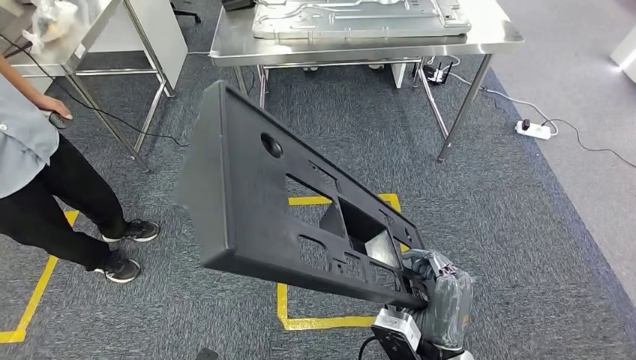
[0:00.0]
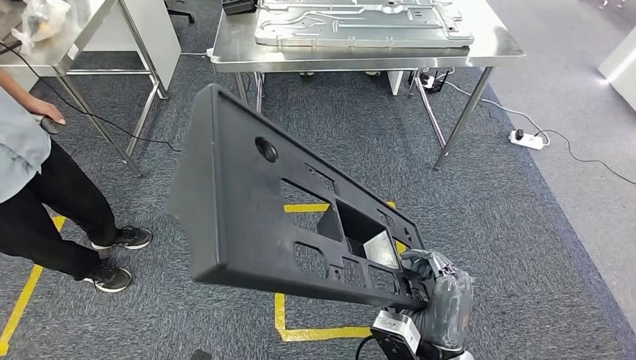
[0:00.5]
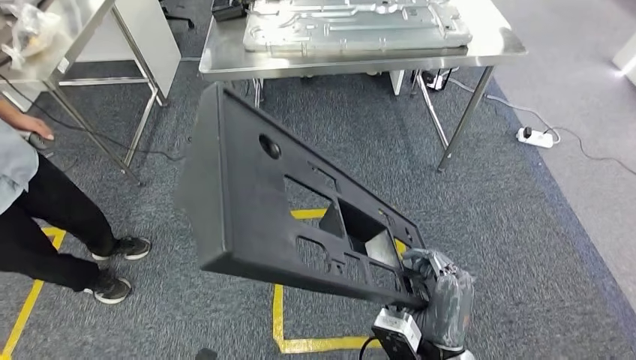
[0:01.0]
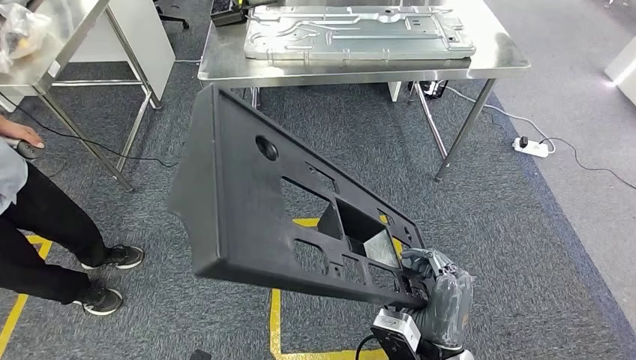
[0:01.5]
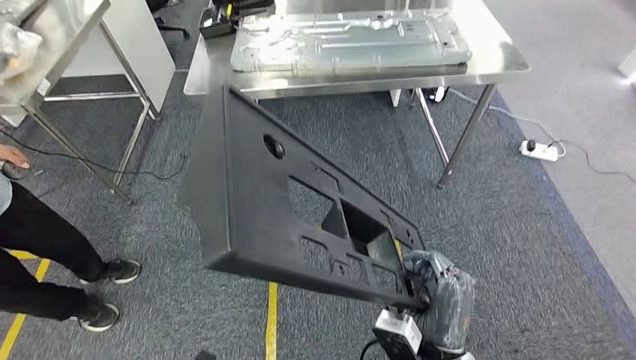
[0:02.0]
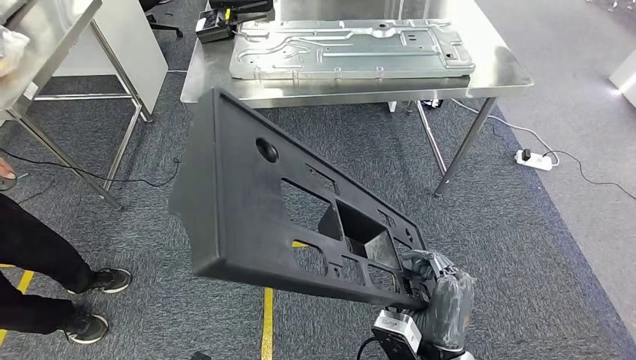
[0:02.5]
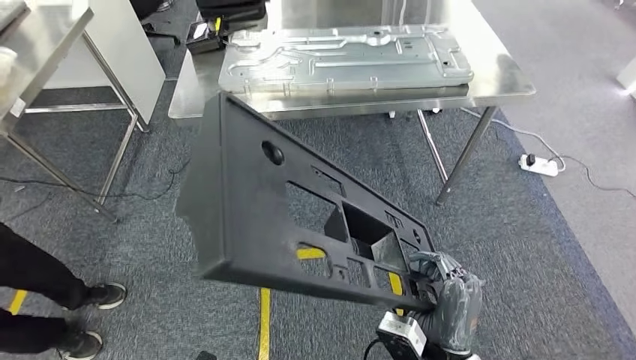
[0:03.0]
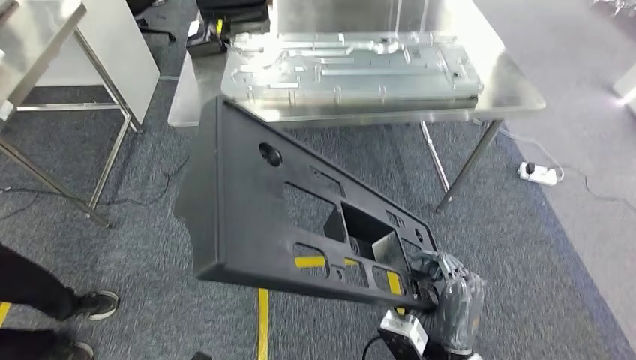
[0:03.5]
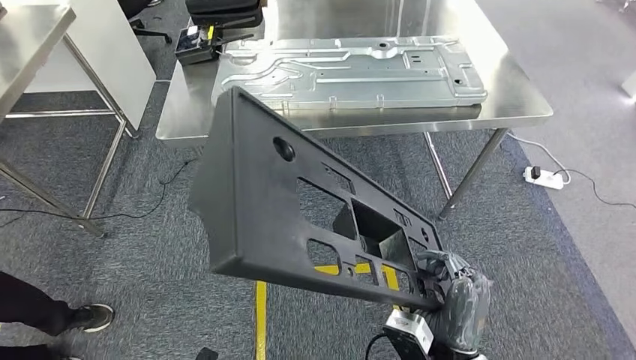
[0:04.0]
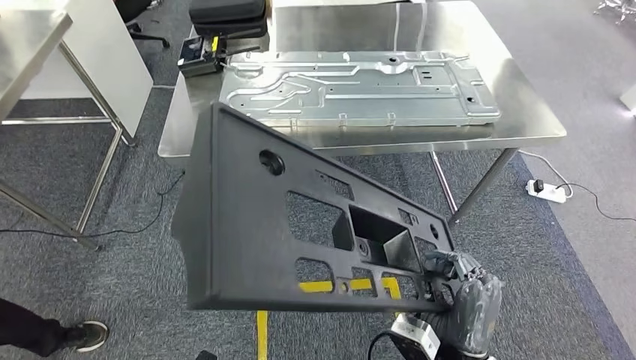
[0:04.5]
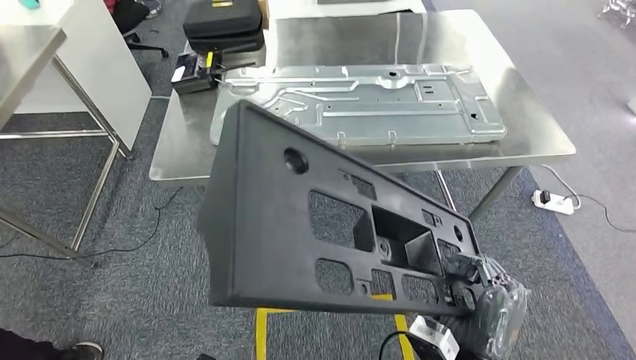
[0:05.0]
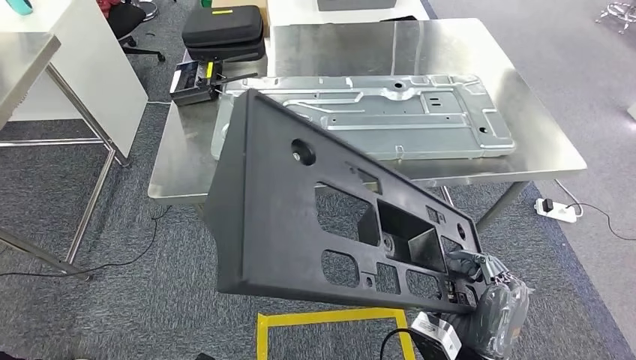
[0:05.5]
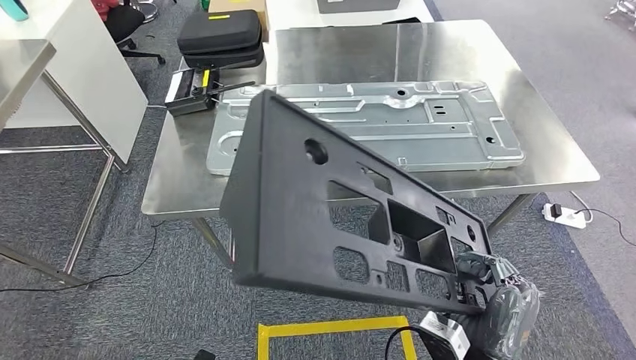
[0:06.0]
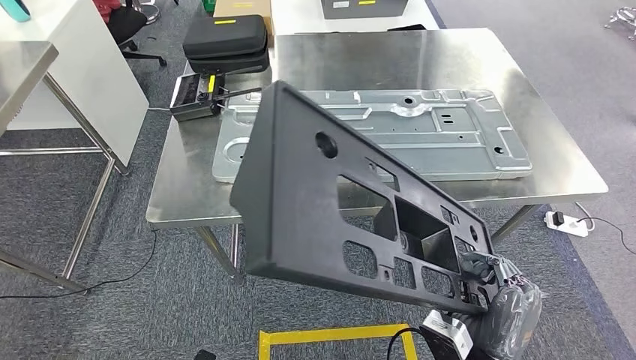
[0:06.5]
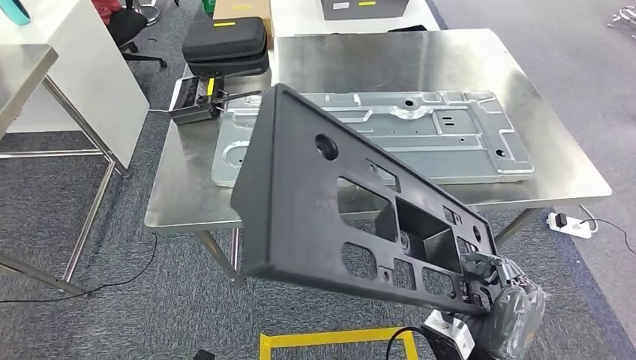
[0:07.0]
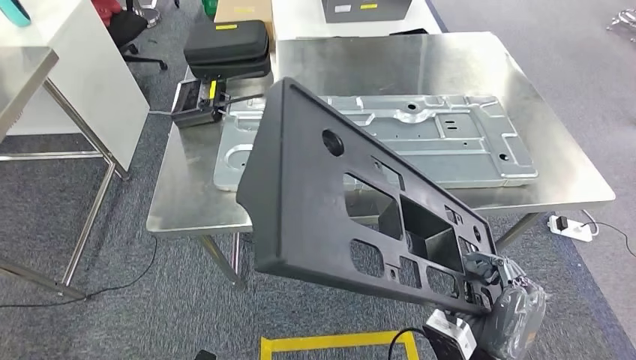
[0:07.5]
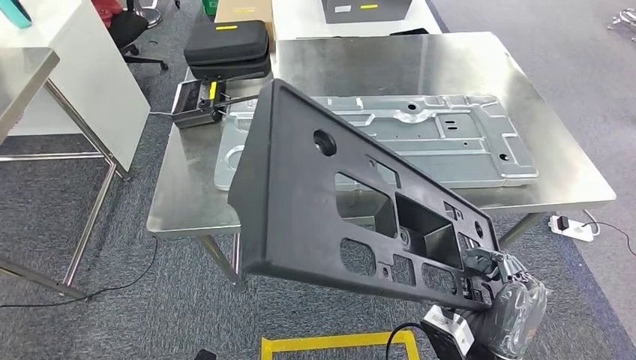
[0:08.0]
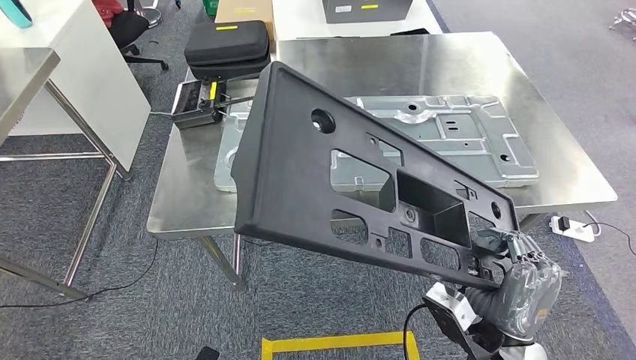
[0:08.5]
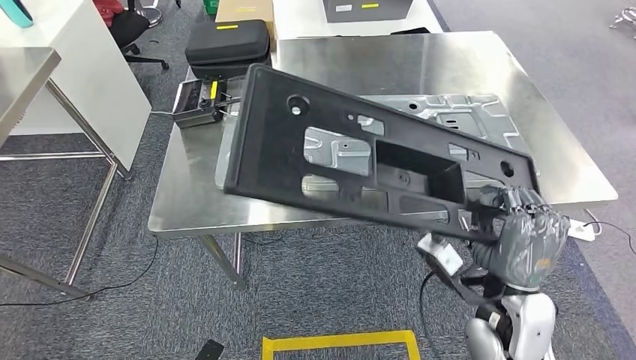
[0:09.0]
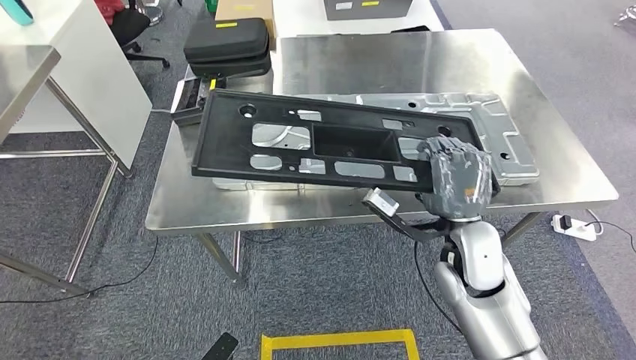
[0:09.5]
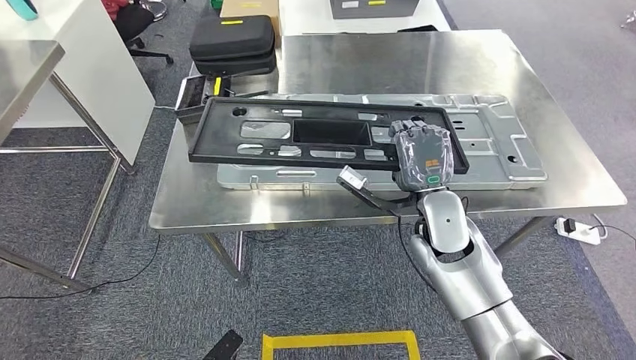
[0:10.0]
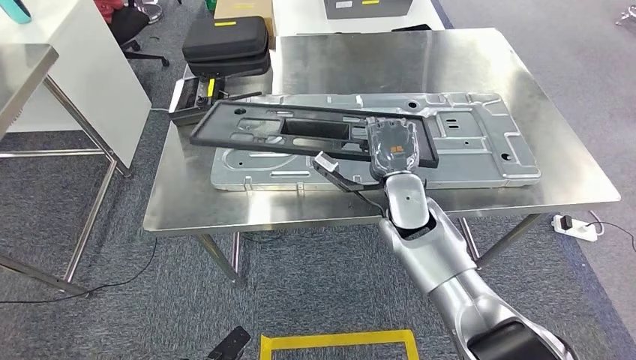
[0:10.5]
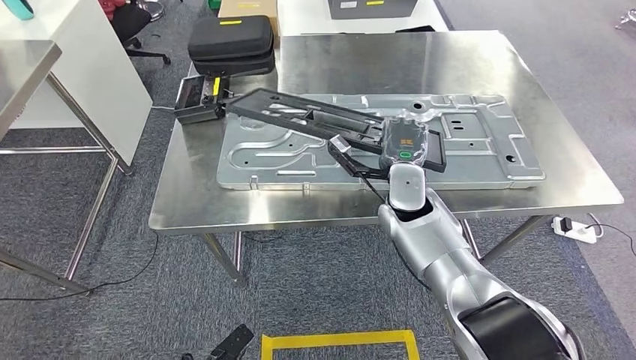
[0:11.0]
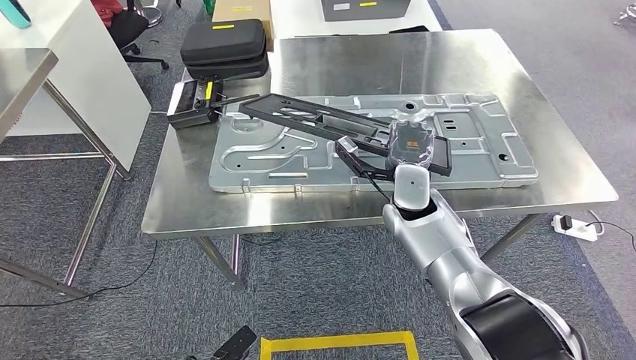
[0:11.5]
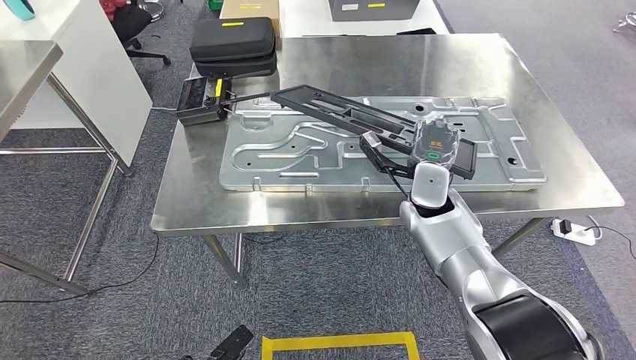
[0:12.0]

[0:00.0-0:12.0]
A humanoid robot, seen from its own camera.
Step, 0:00.0 to 0:06.0: Move the large material to the workbench.

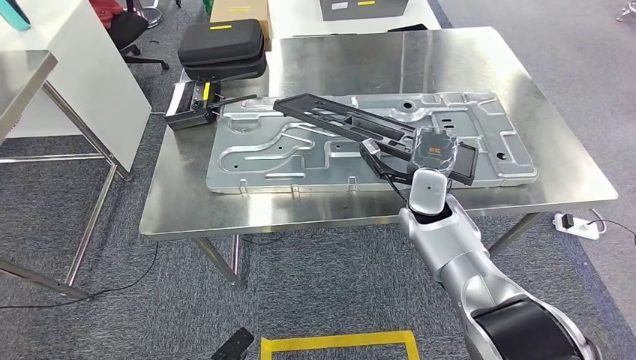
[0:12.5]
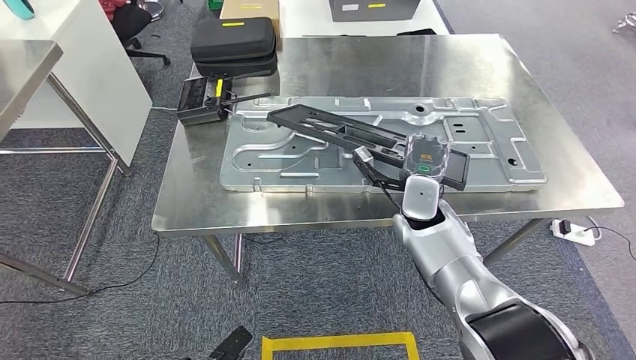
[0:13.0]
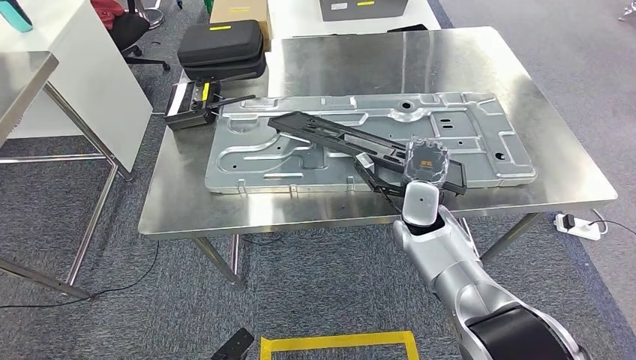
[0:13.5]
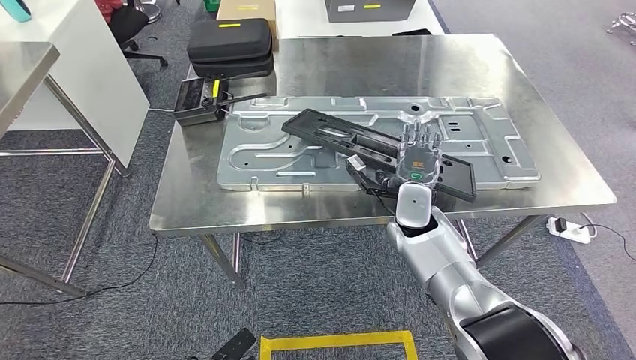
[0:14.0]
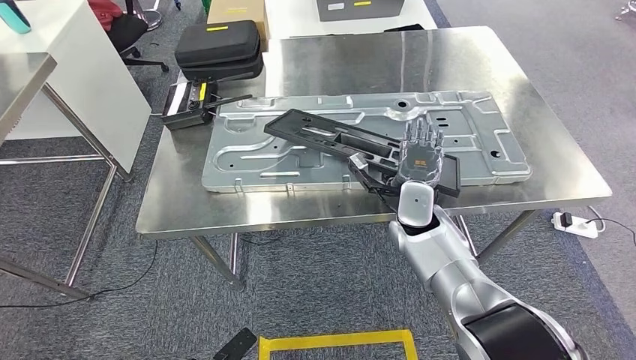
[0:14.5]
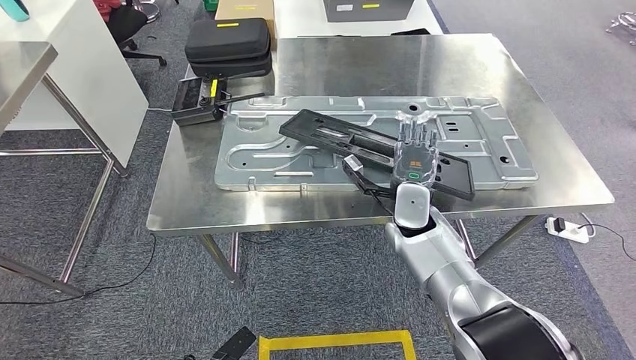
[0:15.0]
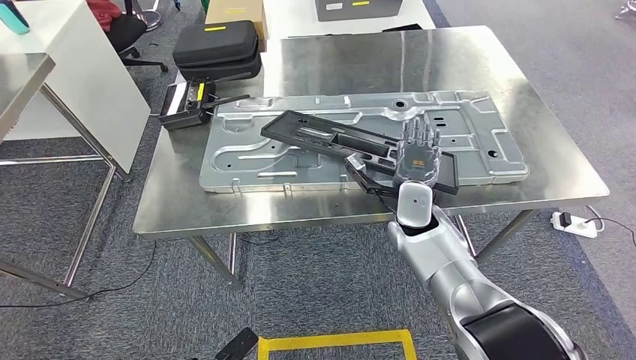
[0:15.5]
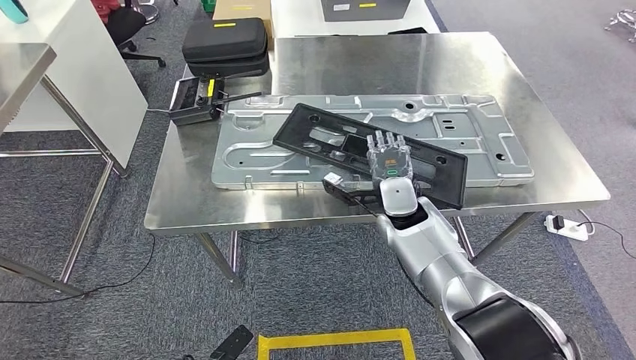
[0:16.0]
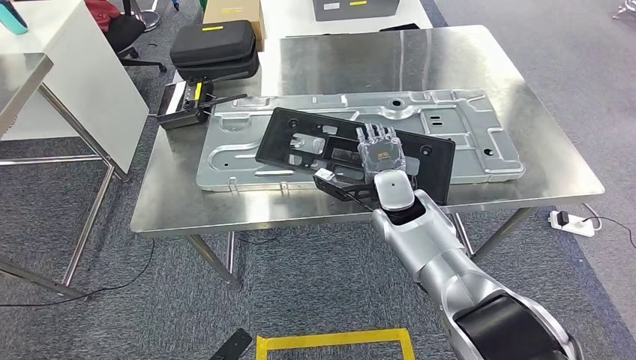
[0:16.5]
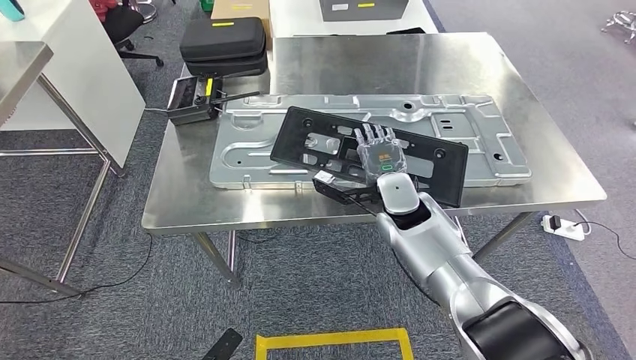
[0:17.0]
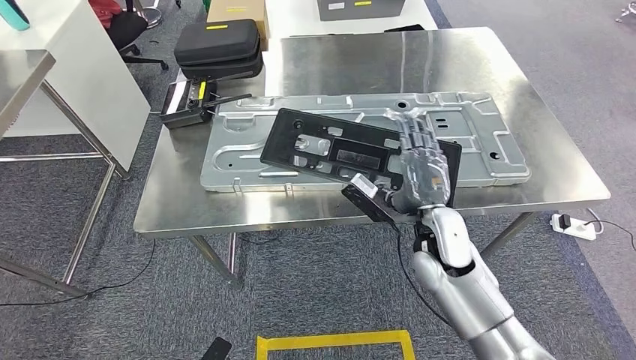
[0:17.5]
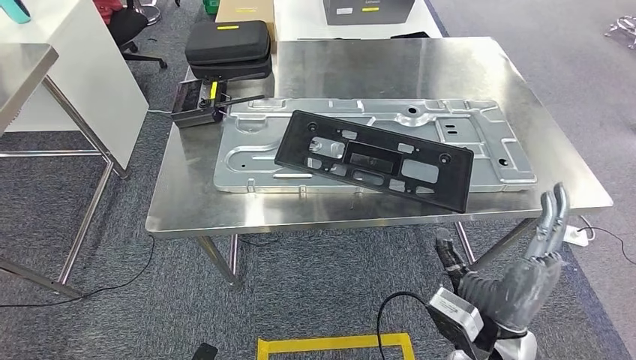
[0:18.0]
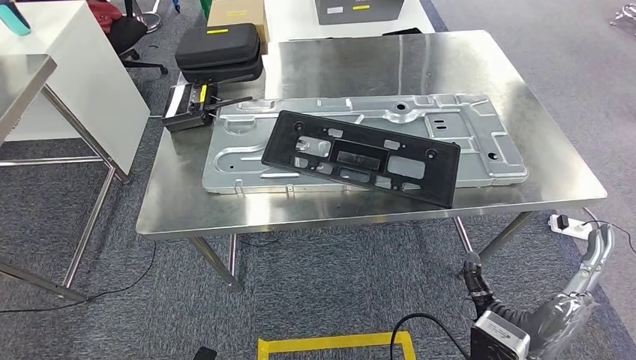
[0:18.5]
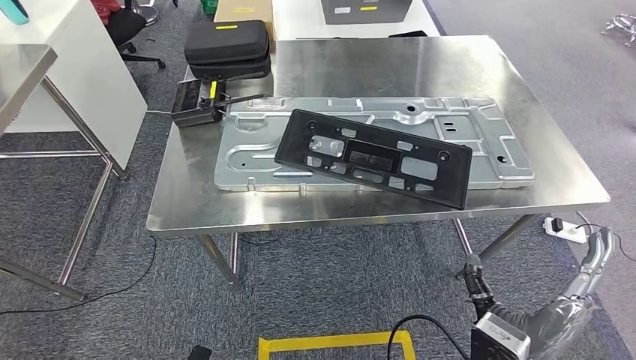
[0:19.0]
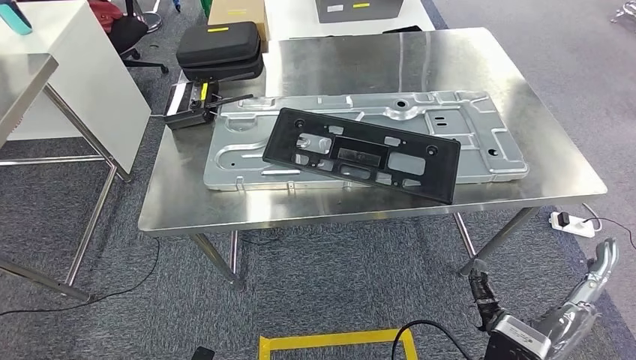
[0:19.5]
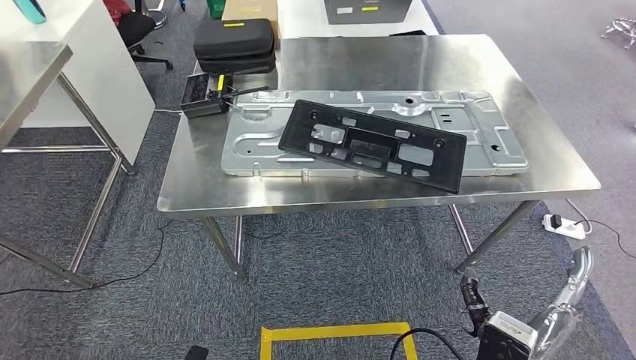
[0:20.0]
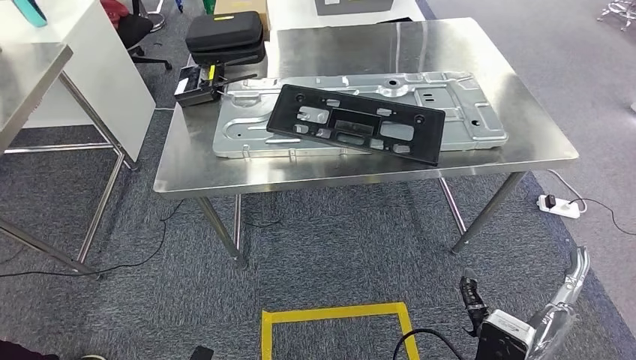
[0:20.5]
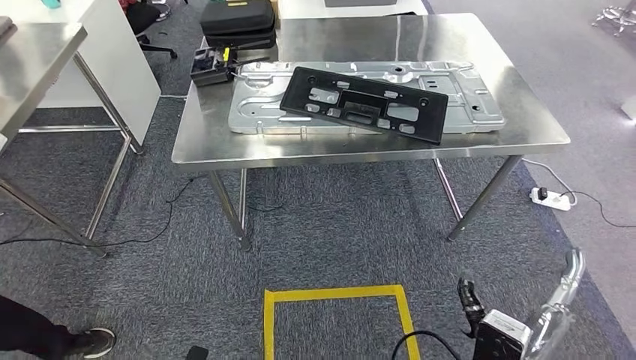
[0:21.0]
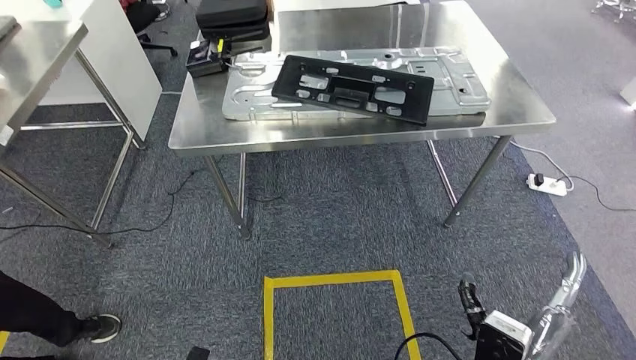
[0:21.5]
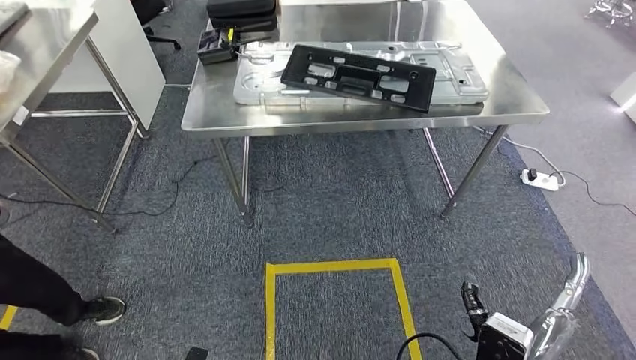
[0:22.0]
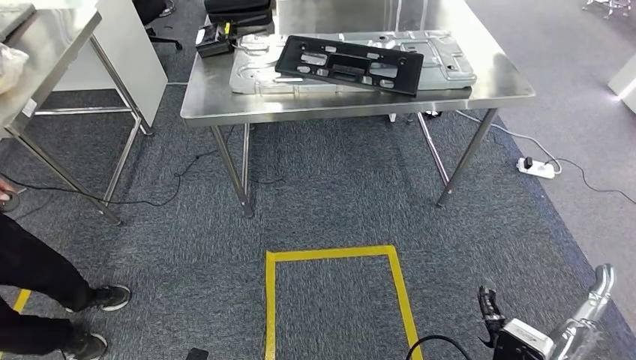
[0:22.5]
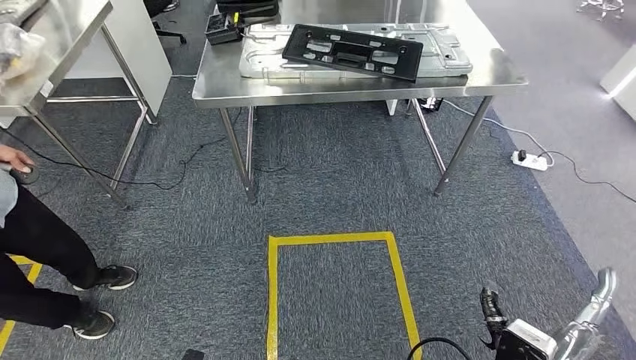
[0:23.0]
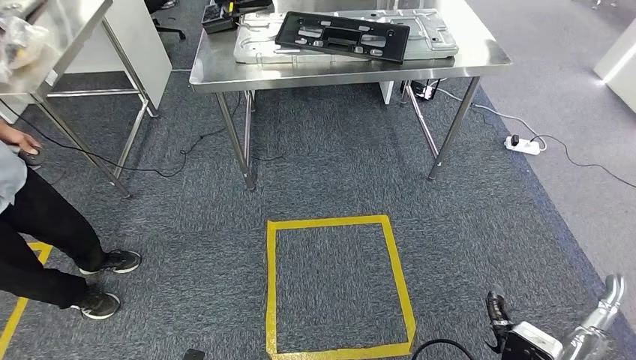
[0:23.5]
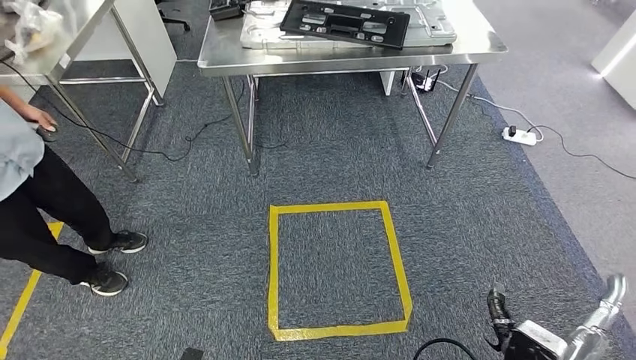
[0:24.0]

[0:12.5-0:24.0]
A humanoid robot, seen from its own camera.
0:12.5 to 0:14.5: The hands stay close to where they were, moving slightly.
